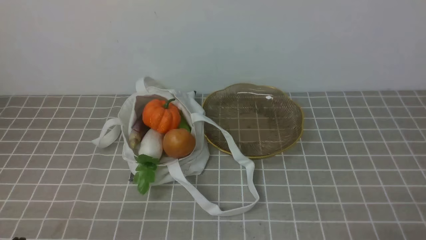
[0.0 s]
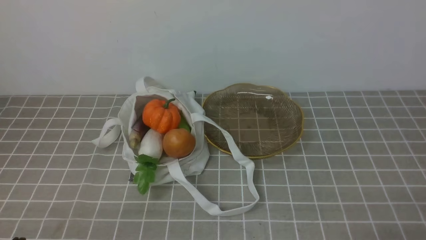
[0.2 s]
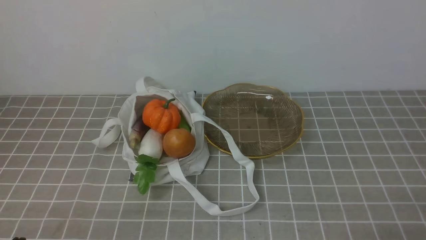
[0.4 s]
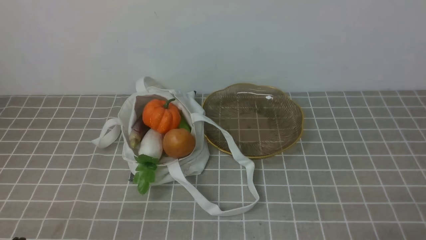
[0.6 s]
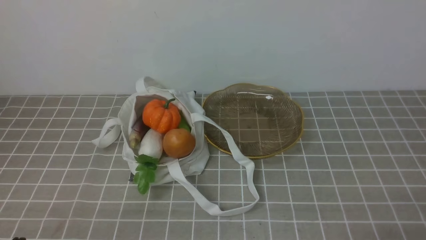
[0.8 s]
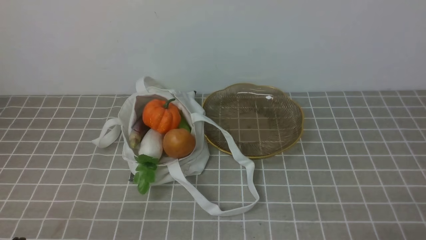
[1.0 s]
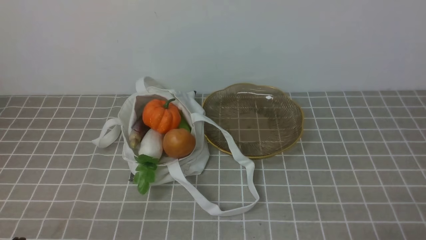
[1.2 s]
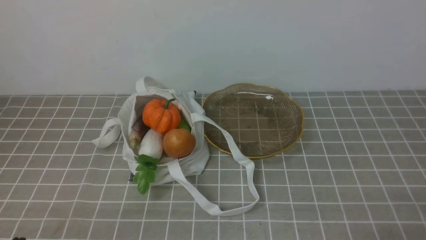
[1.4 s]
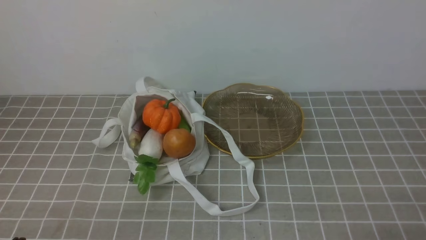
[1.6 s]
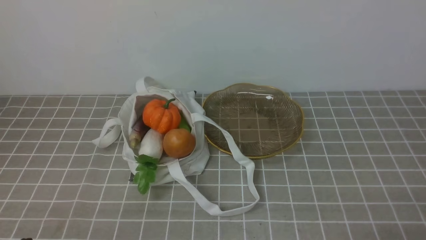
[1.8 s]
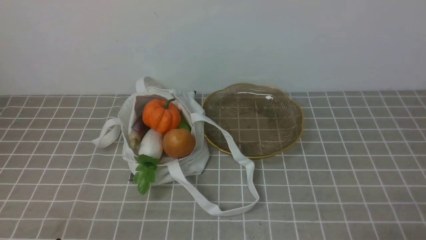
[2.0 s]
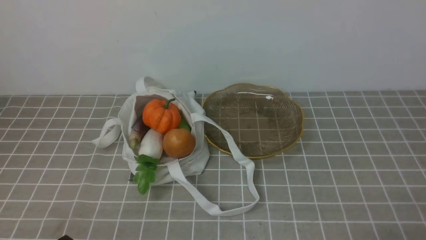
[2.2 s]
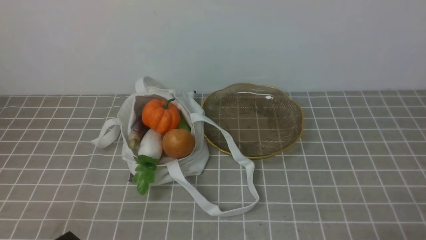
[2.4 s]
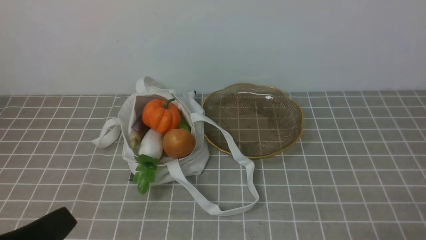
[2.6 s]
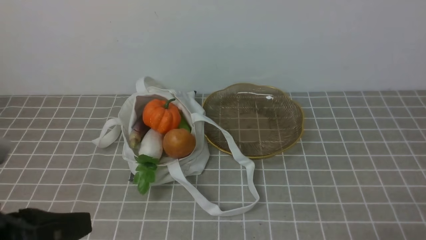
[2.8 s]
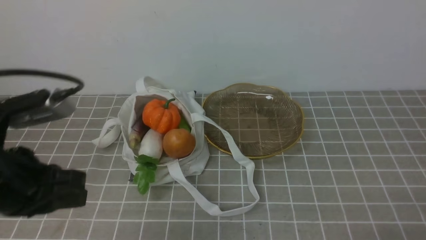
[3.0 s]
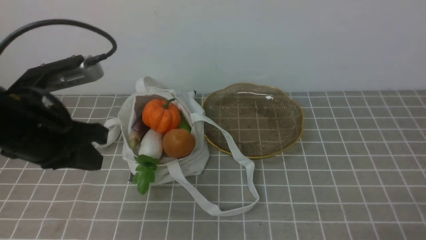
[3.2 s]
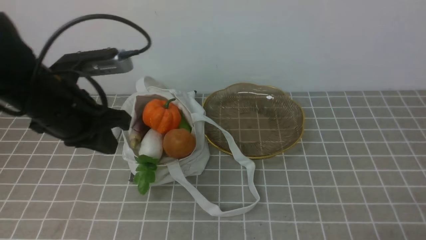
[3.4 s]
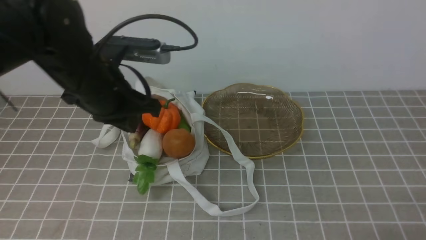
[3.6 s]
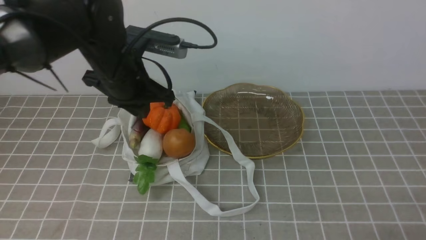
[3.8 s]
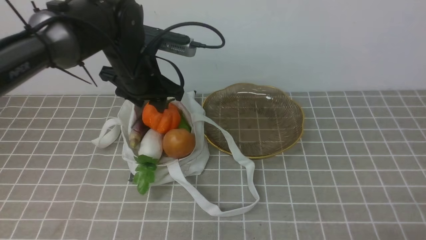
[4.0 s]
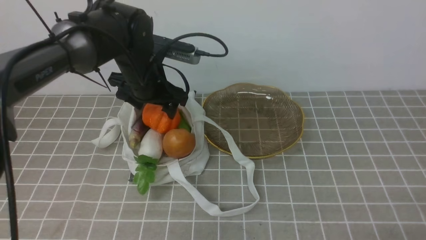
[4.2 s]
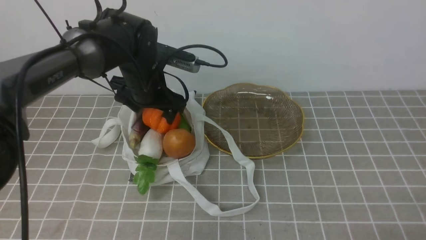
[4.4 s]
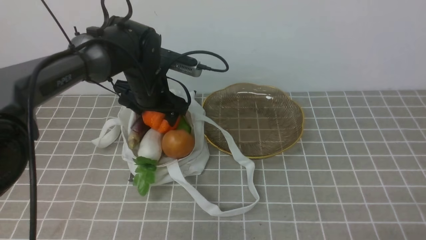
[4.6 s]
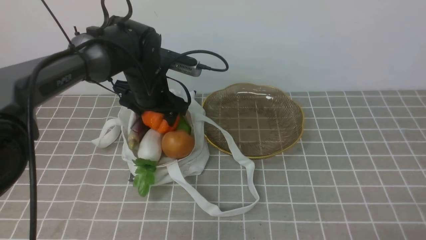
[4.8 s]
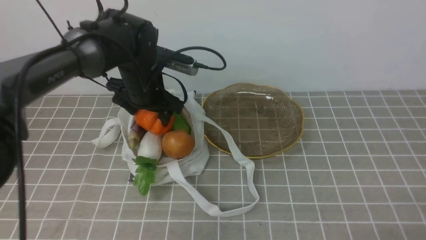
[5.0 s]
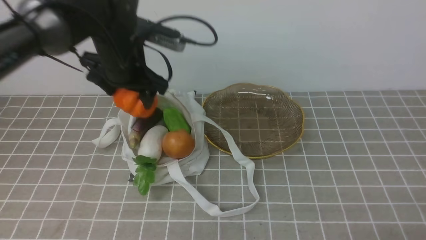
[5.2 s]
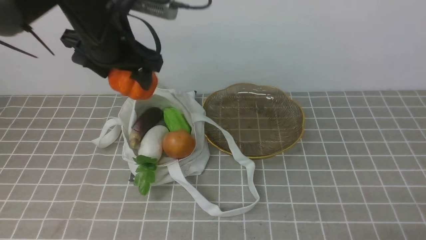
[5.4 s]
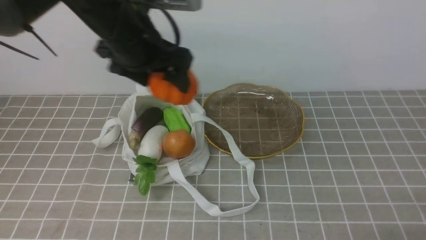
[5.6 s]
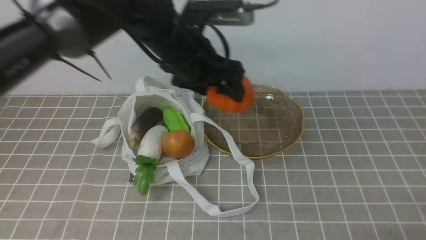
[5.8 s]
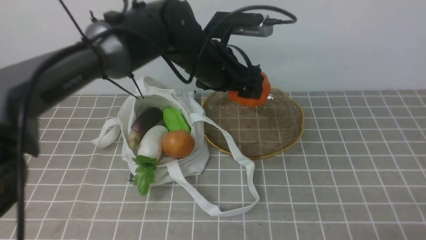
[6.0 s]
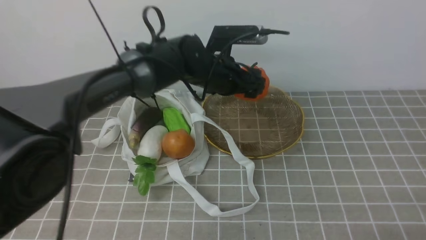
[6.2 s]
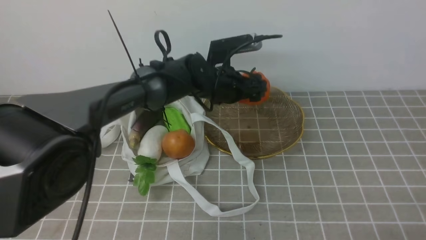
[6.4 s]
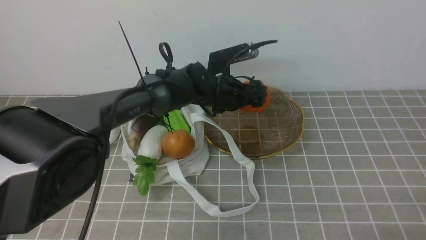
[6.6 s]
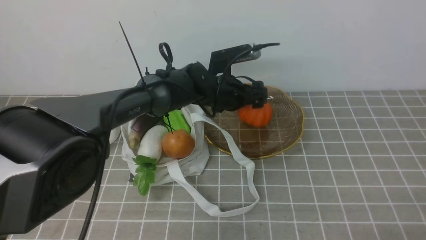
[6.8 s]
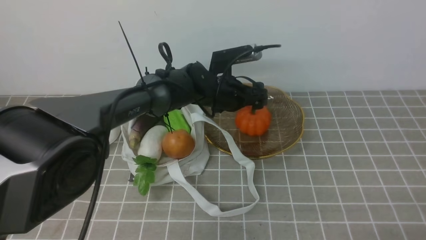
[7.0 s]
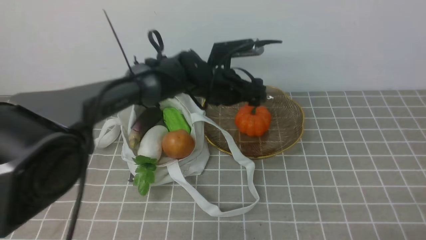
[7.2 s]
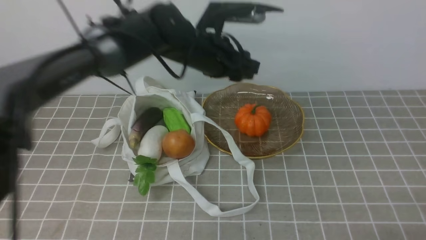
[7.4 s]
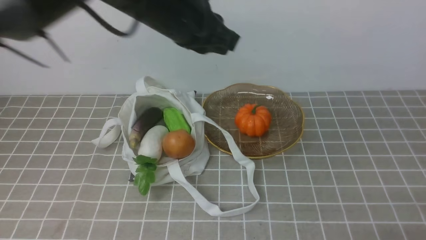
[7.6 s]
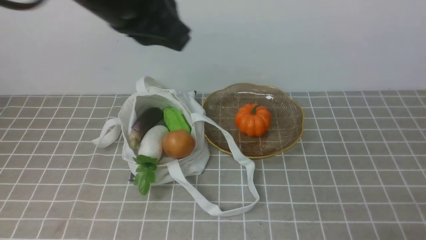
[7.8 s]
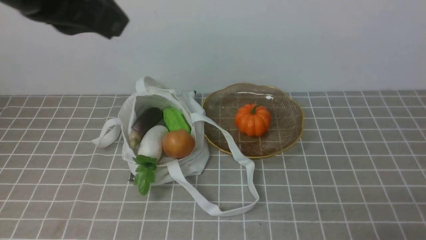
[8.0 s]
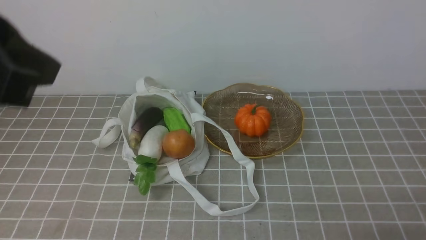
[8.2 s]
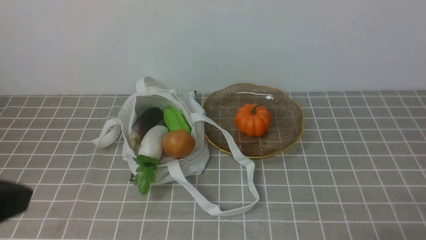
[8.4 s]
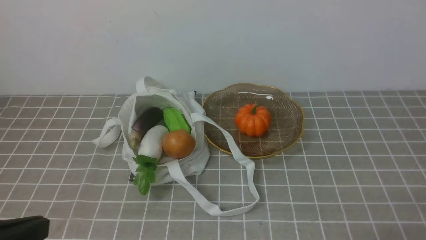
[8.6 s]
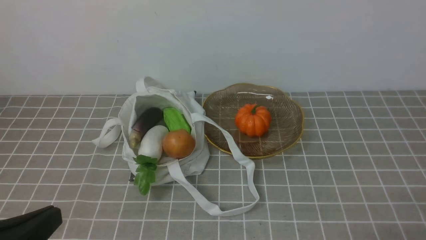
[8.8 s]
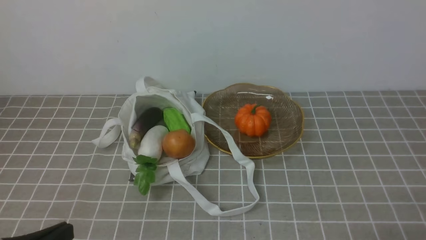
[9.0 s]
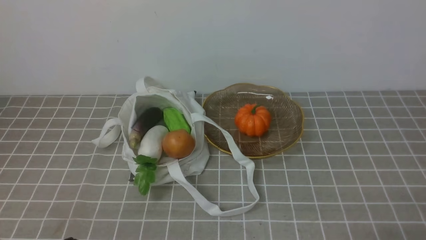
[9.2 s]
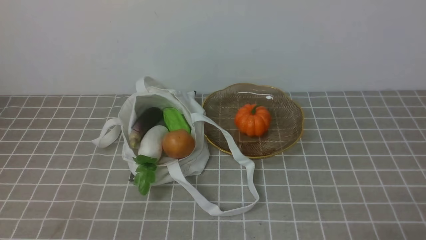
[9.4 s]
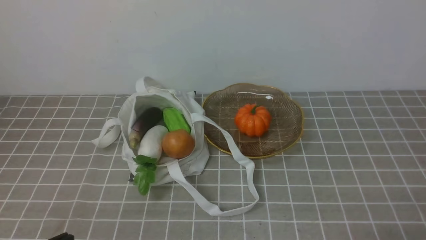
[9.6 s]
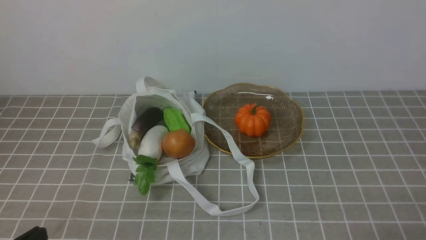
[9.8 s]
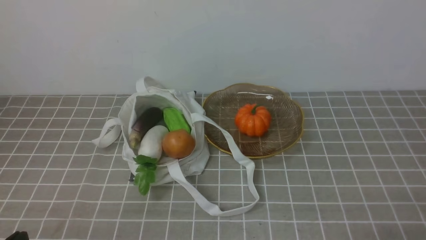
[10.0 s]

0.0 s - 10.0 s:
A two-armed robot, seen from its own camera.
Task of the whole recording: take vegetables from bag on grey coffee tablecloth place on plate.
Step, 0.0 s - 4.6 s: Grasp the pumpkin with left gripper.
Step, 4.8 s - 7.4 s: Place the pumpkin on the plate with left gripper.
1.4 s - 2.8 s: The left gripper goes approximately 15 cm upward.
2.8 s - 4.2 s: The left gripper moves forward, some 35 cm, and opens its fingers.
4.2 s - 5.8 s: The left gripper goes roughly 10 cm upward and to the right.
5.8 s - 7.2 s: The left gripper is displaced downward, forward and to the right by roughly 15 cm.
7.2 s - 8.6 s: The left gripper shifts about 40 cm backward and to the left, and closes.
8.6 s - 10.0 s: The left gripper goes roughly 15 cm downward.

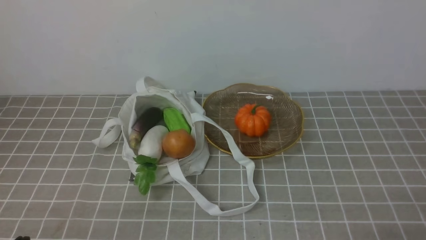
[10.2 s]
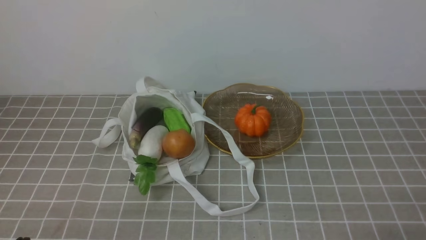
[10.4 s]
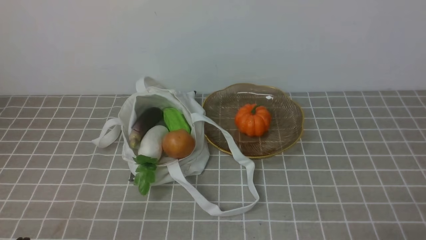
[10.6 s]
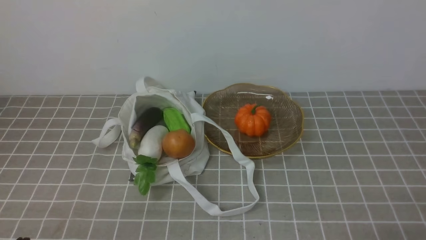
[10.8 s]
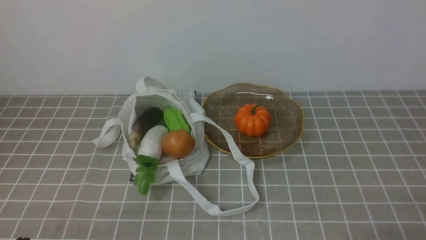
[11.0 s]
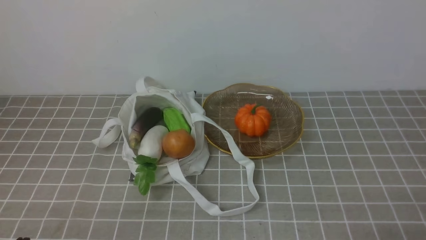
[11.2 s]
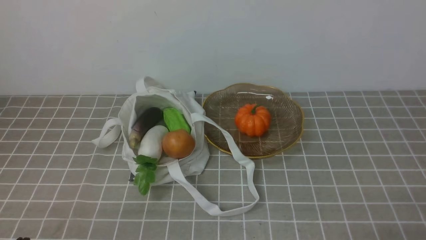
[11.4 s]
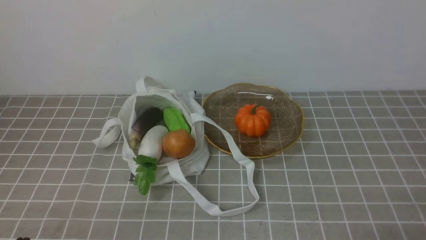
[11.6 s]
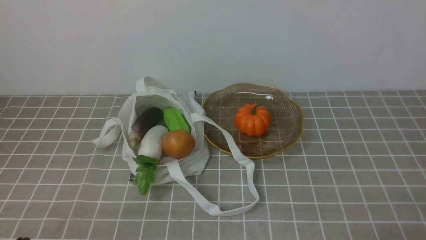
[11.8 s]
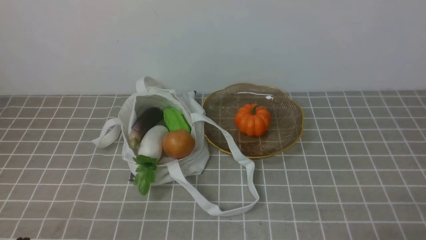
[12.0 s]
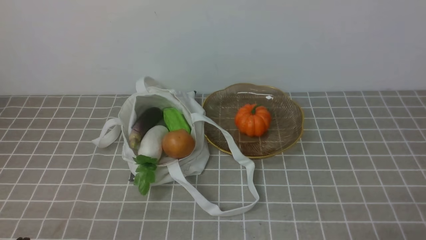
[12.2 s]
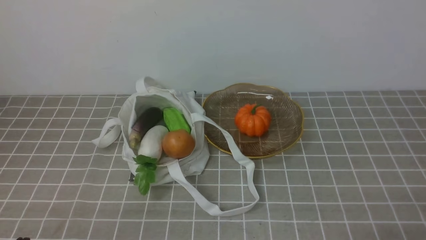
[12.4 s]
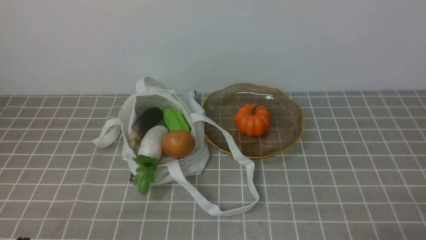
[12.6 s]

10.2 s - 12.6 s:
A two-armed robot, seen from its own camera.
Task of the whole recording: take vegetables from bag on grey coffee tablecloth place on plate.
10.2 s - 12.6 s: The two grippers keep their place.

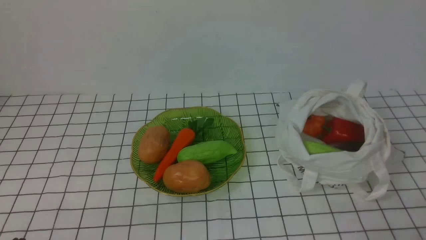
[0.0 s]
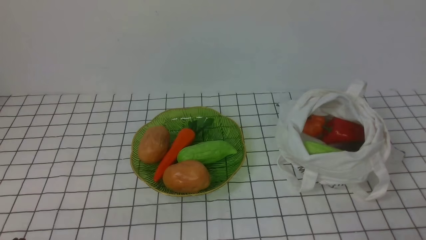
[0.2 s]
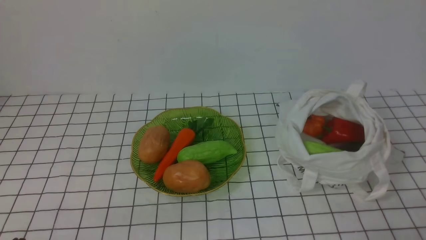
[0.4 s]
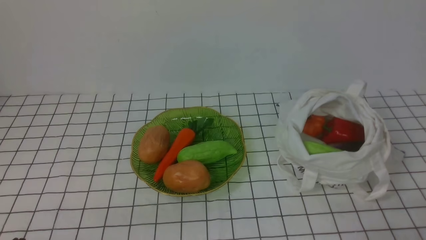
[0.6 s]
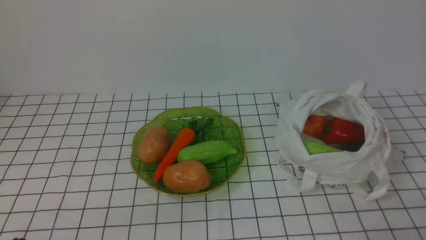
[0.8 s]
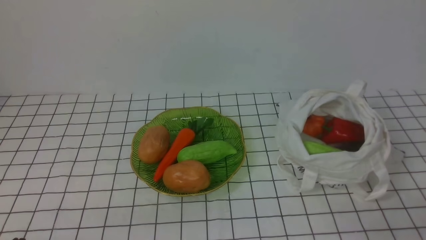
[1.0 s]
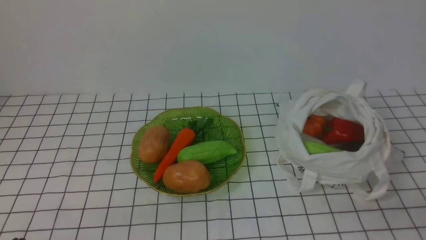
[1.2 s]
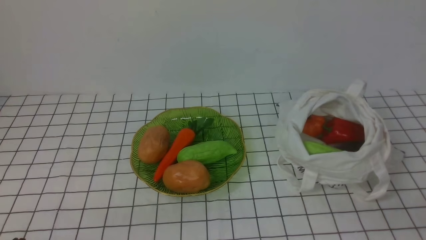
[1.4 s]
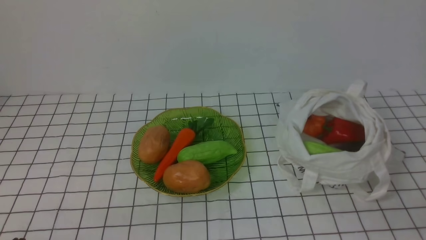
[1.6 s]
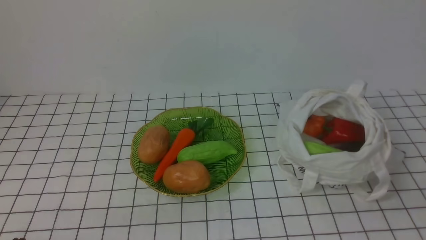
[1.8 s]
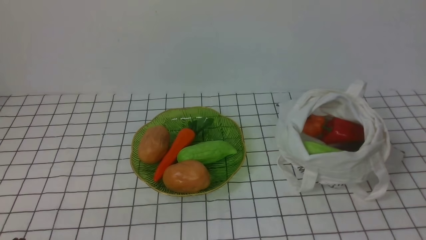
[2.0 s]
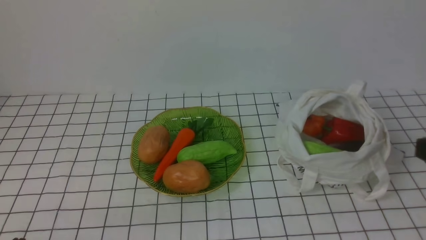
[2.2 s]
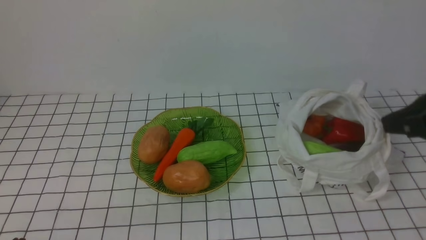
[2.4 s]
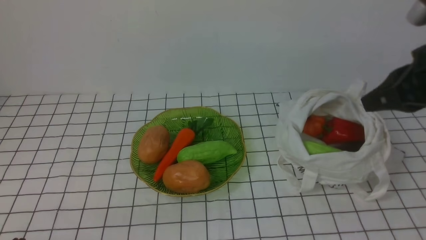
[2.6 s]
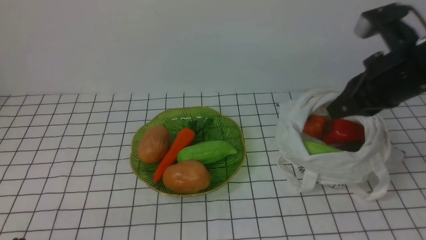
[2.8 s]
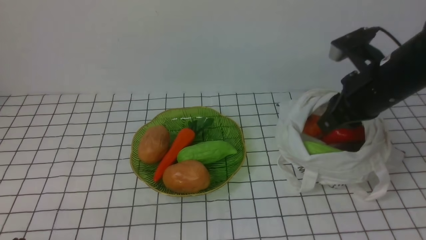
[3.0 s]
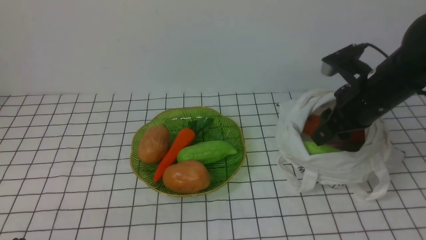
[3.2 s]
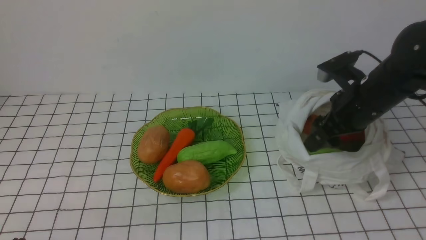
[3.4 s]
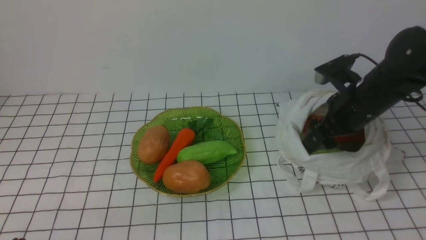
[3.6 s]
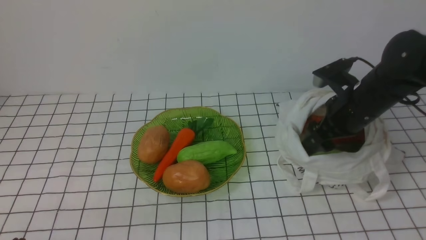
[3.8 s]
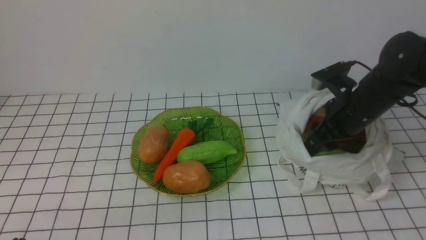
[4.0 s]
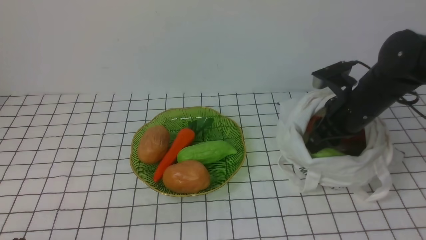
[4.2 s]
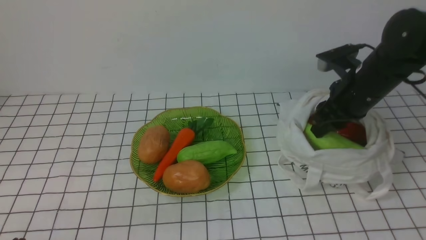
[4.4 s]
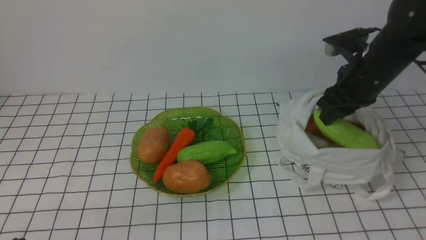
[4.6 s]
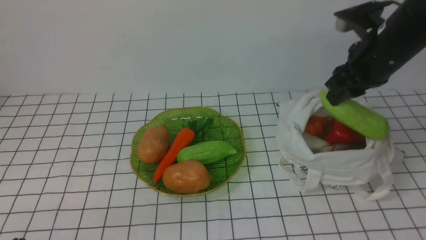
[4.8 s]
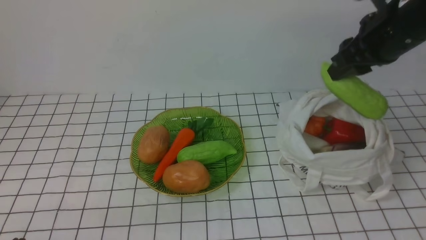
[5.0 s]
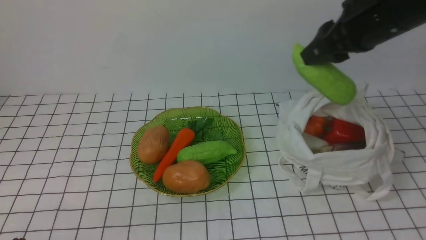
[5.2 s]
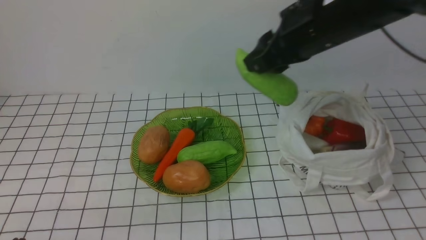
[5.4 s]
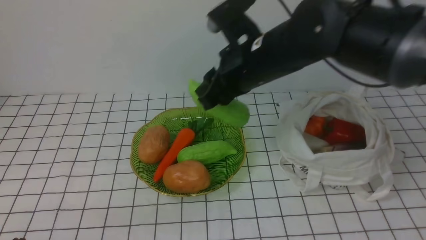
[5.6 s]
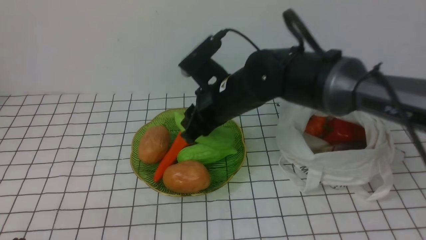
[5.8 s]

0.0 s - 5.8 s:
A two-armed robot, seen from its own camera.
Task of the whole recording: take vegetables from bag on white checkered tablecloth place on plate.
Step, 0.0 s - 4.2 s: Grasp the bitter melon with right gripper.
1.4 s - 2.8 s: The right gripper is displaced forward and upward by some 25 cm.
2.8 s - 4.4 s: The right gripper moves downward and forward, about 10 cm, and opens.
4.4 s - 5.8 s: The right gripper is displaced to the left by approximately 20 cm.
